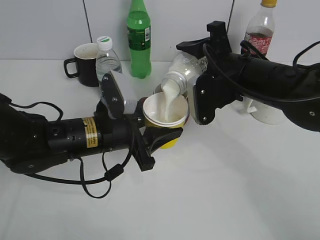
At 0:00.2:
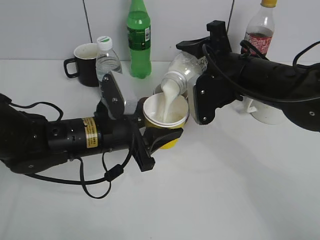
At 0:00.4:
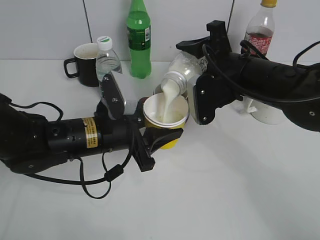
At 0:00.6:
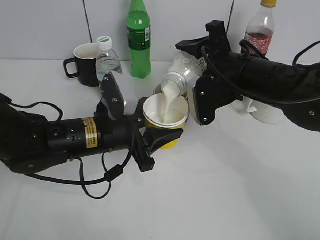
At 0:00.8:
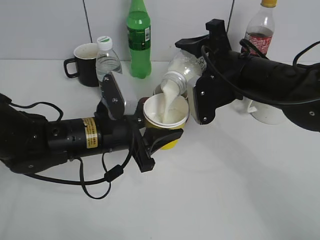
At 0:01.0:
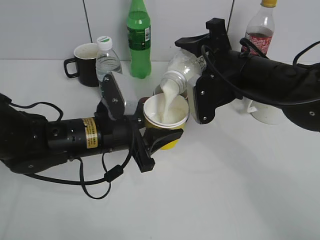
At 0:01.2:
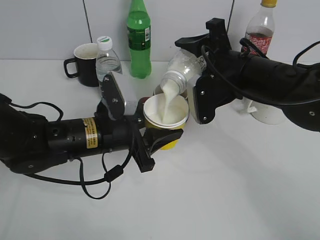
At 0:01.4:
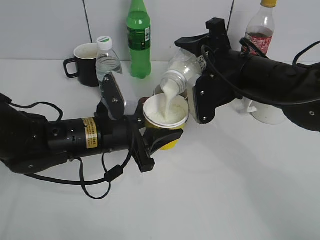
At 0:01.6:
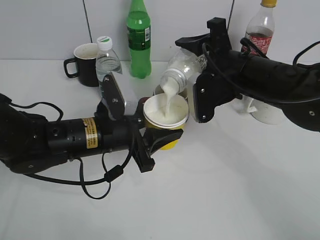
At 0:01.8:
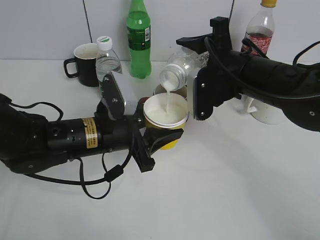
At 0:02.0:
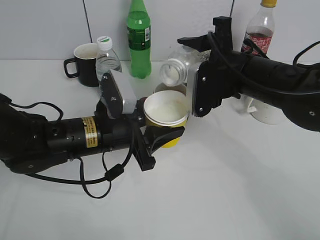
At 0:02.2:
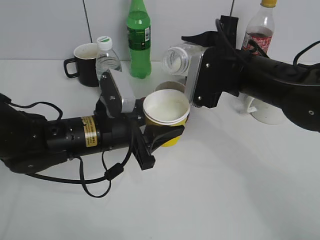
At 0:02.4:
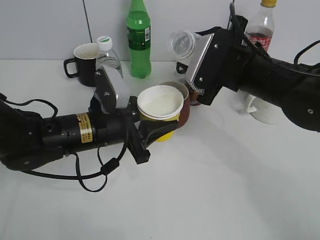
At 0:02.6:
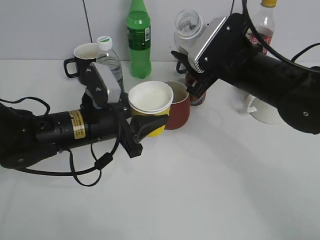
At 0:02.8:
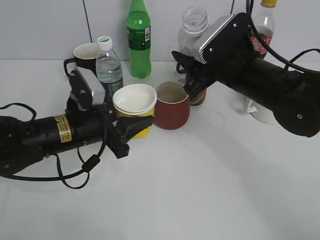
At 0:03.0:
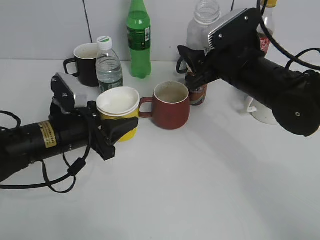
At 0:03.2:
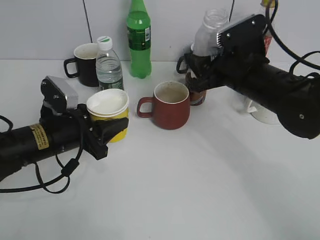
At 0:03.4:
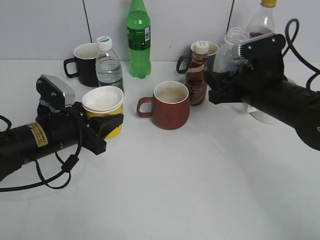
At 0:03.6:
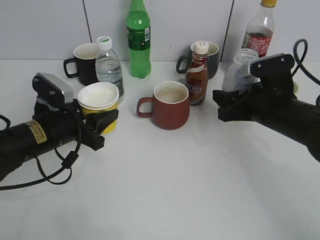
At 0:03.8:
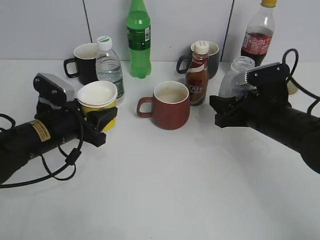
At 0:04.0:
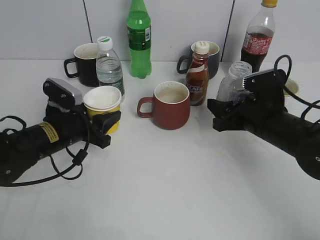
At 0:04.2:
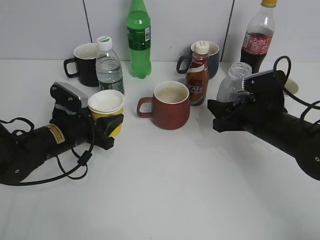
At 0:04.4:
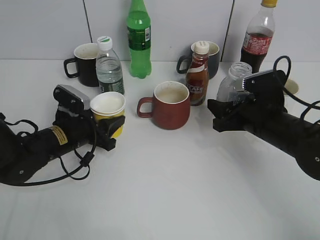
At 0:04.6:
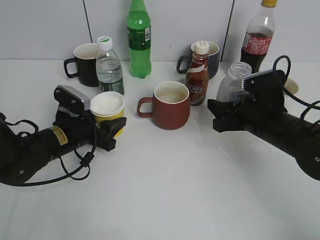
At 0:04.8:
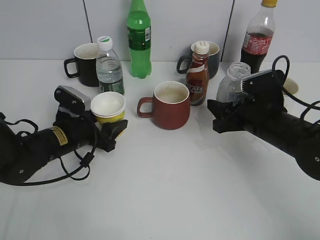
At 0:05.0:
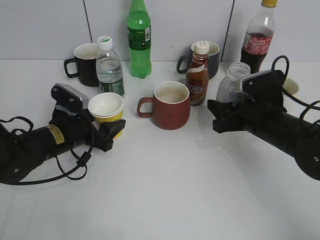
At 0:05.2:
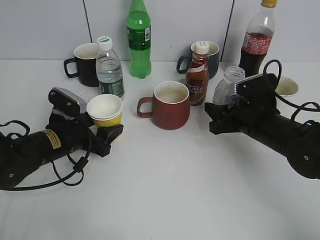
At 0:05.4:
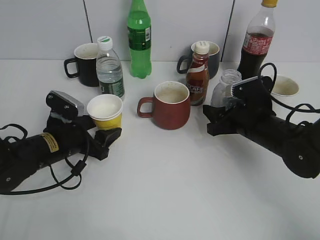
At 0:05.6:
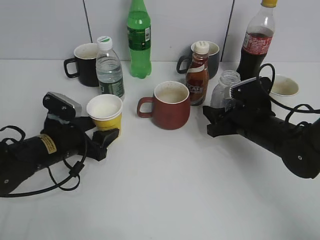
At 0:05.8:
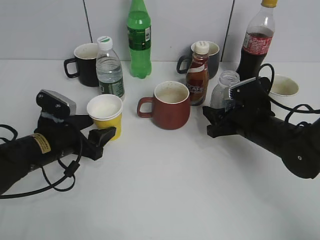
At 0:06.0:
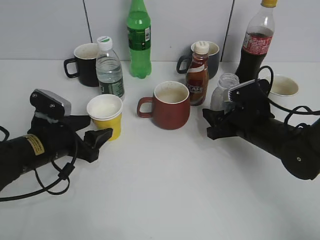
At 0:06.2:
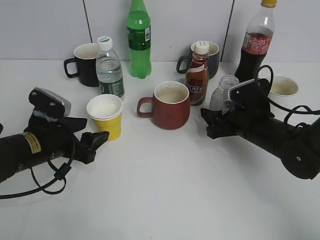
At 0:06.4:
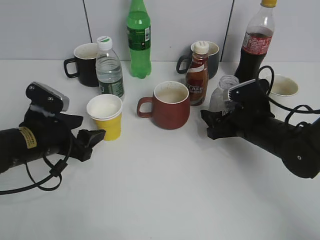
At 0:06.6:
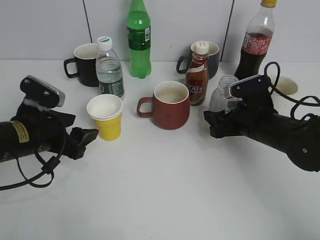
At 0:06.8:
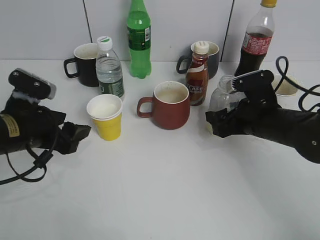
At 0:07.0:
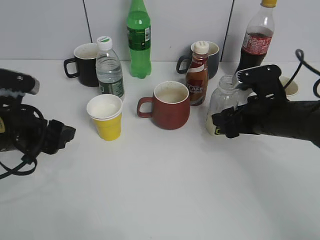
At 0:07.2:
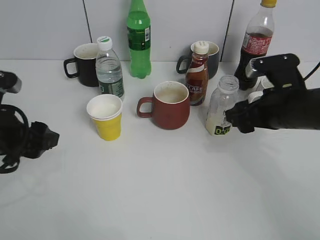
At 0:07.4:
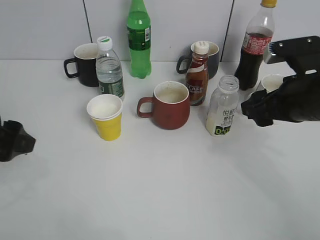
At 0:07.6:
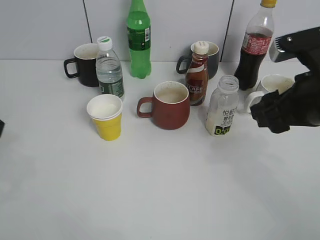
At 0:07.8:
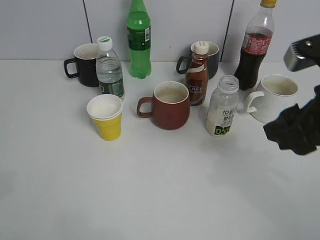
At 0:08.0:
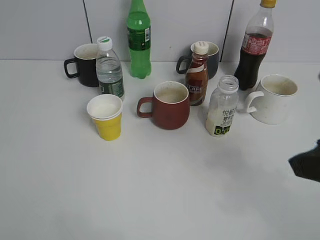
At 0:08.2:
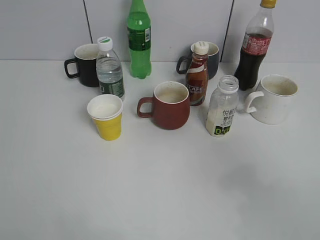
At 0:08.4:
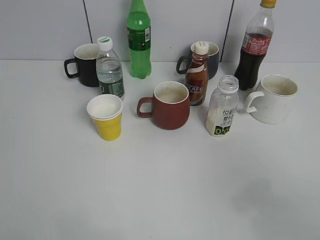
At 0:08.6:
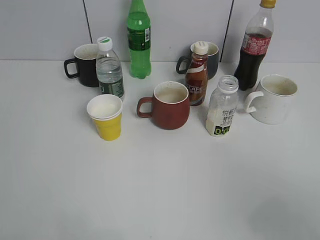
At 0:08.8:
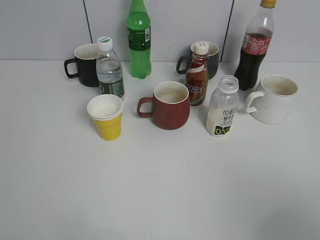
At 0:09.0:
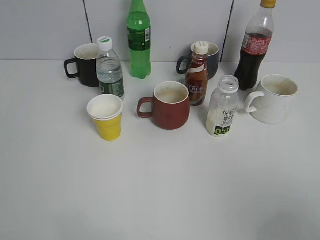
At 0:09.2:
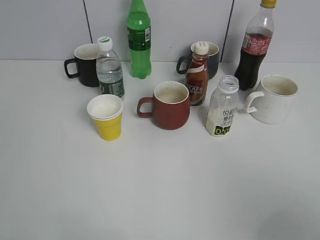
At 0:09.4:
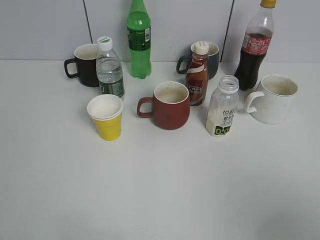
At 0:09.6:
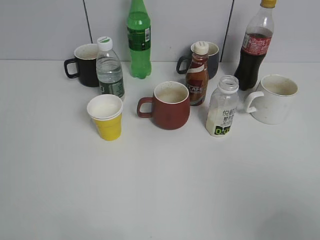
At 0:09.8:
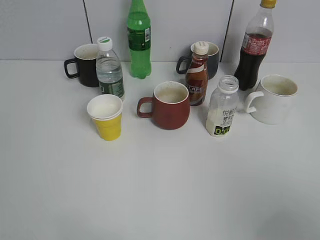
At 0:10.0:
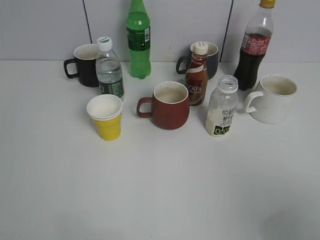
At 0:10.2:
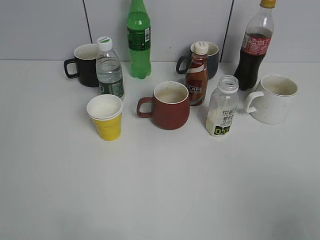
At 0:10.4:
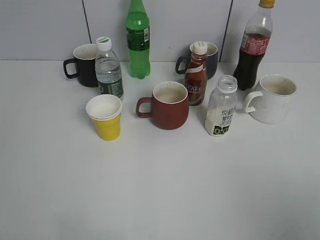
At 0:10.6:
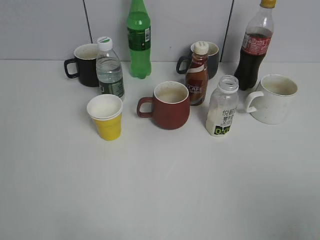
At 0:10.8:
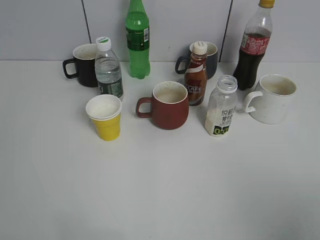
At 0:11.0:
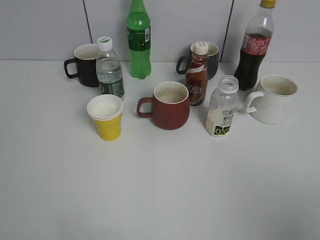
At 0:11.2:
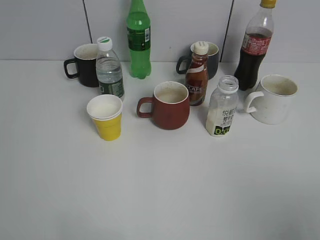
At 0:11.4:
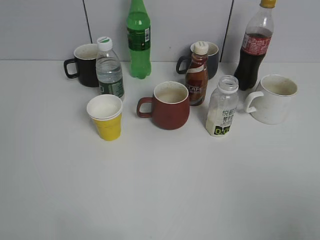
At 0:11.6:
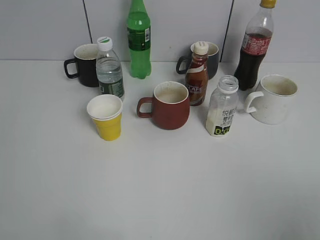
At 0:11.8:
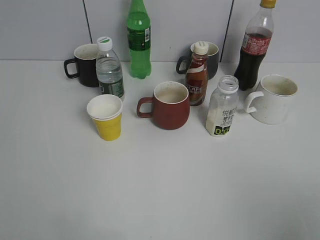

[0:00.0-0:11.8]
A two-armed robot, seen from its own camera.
Step, 0:00.0 to 0:02.0: Pour the yuexian Milk from bottle to cup with right gripper.
Step, 0:02.2 to 0:07.0: Place the yuexian Milk bottle on the table with right gripper.
0:00.0 to 0:01.4: The two grippers keep their place.
0:01.4 to 0:03.0: The left gripper moves to the left, approximately 5 cm.
0:03.0 to 0:04.4: The left gripper travels downward by some 5 cm. Meanwhile the right gripper shifts approximately 10 cm downward and to the right.
0:04.4 to 0:06.0: The left gripper moves about 5 cm, and opens.
0:06.0 to 0:07.4: The right gripper shifts about 15 cm upward and backward, and opens up, while the left gripper moves upward, backward and to the left, roughly 15 cm.
0:07.4 to 0:08.8: The right gripper shifts approximately 25 cm backward, and closes; the left gripper goes some 20 cm backward and upward.
0:10.4 to 0:11.8: The grippers make only small movements.
